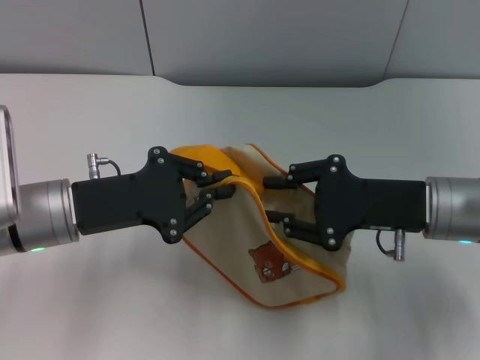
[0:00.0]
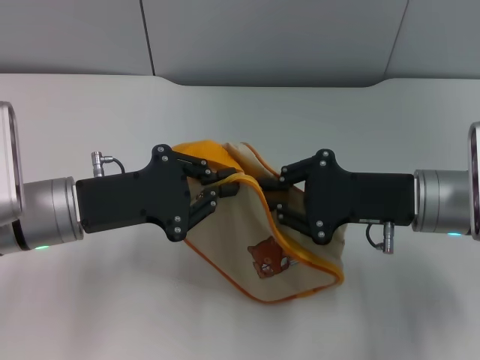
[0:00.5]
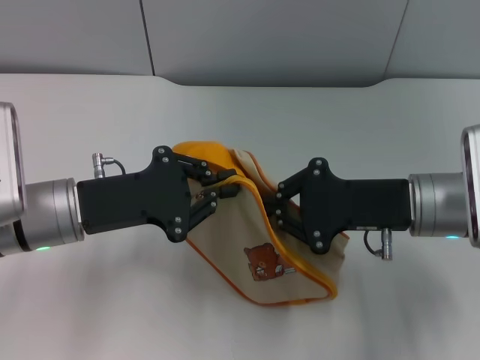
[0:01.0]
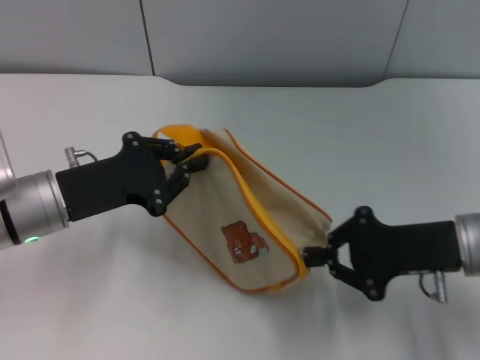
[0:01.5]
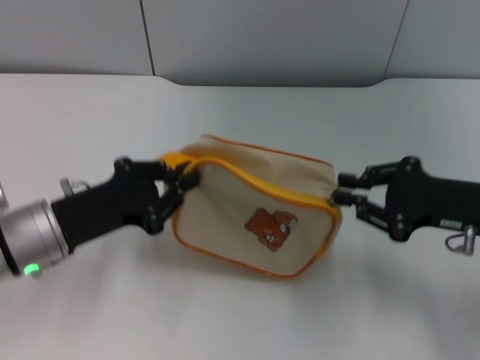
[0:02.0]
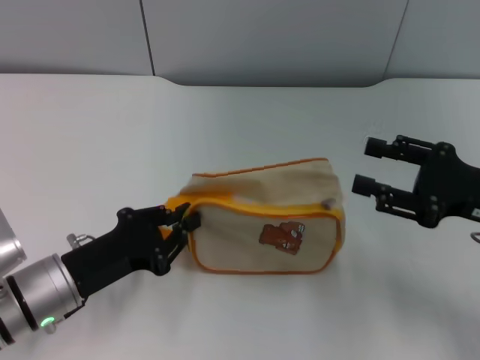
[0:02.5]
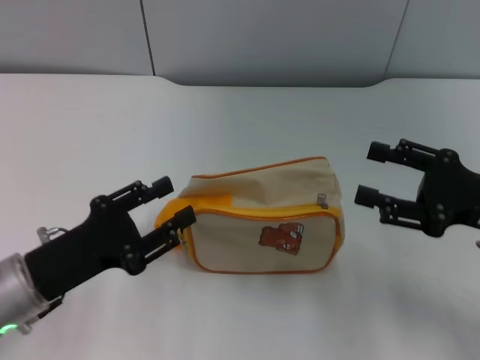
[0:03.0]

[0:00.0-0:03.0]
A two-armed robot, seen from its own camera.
Step, 0:00.0 to 0:02.0: Unzip the zipper of bag with right gripper.
0:00.0 to 0:01.5: The right gripper closes up.
0:01.5 to 0:03.0: The left gripper travels backward by approximately 10 cm, and opens its fingers, while the right gripper travels to the right by approximately 5 cm, and opens.

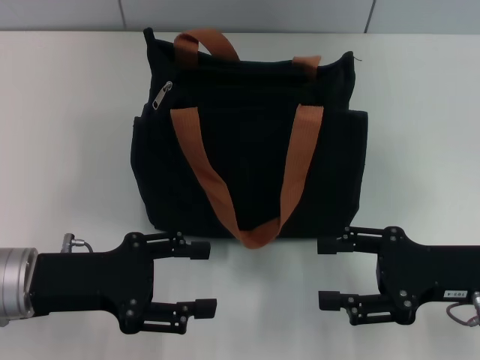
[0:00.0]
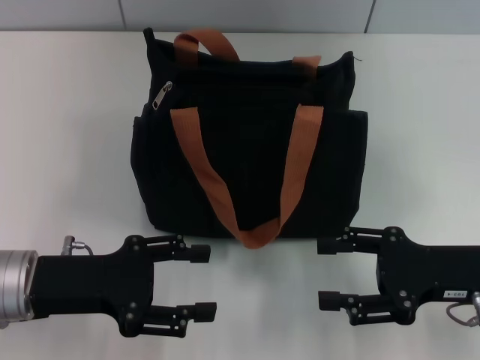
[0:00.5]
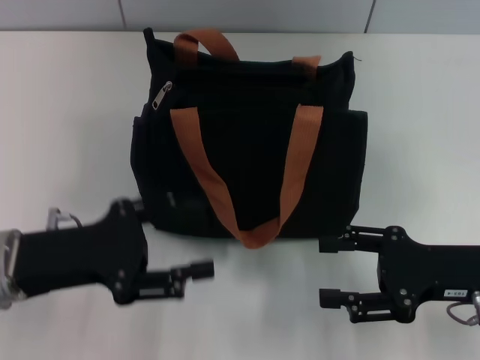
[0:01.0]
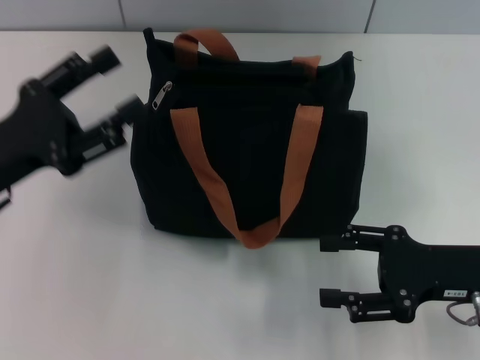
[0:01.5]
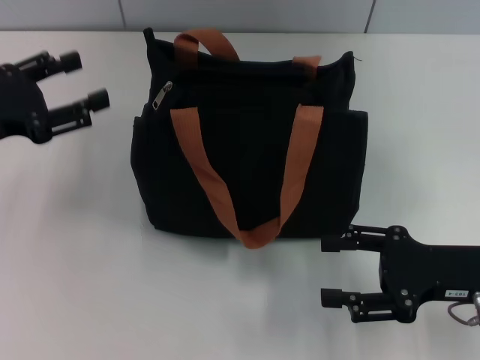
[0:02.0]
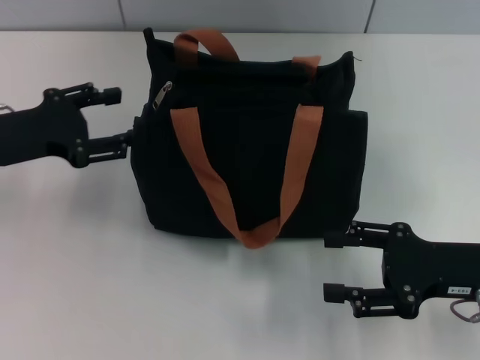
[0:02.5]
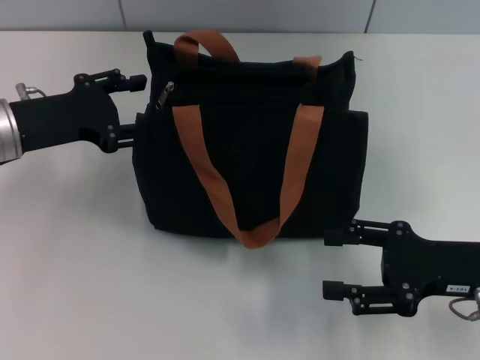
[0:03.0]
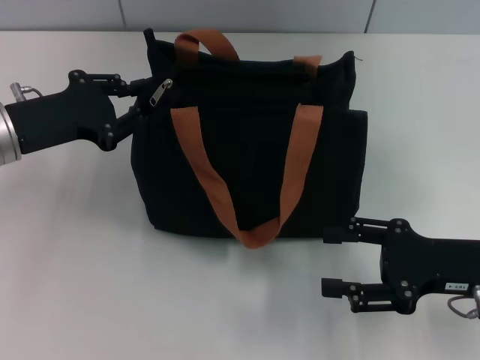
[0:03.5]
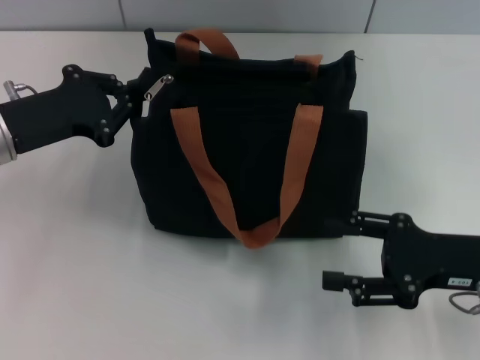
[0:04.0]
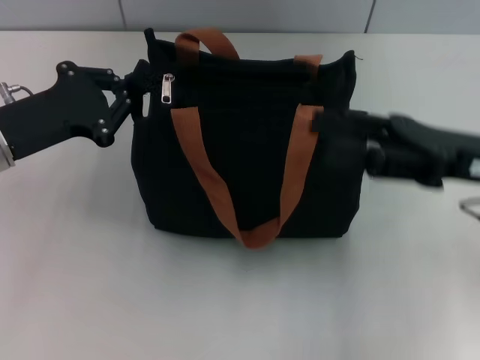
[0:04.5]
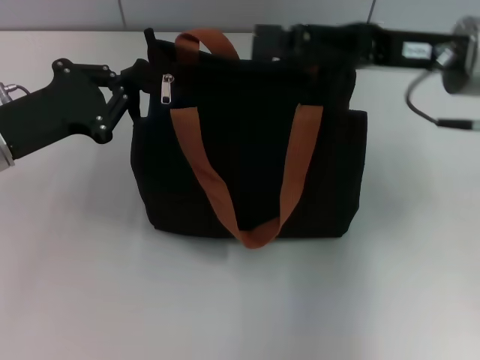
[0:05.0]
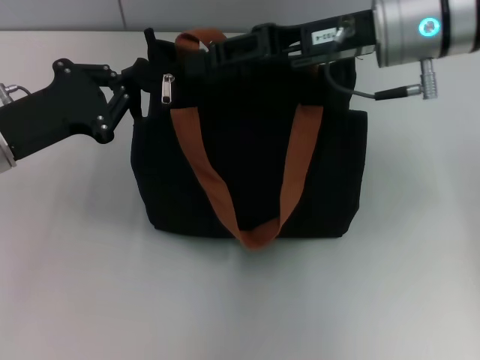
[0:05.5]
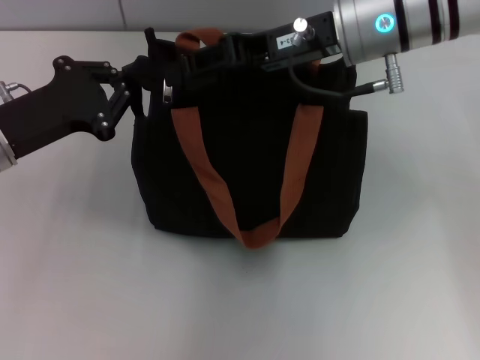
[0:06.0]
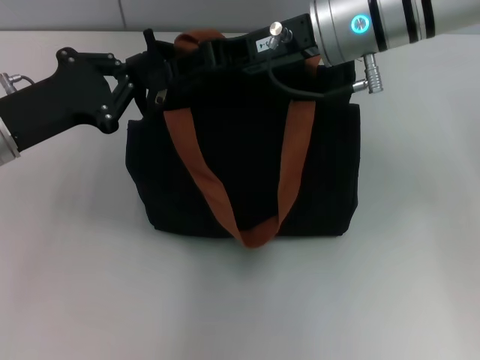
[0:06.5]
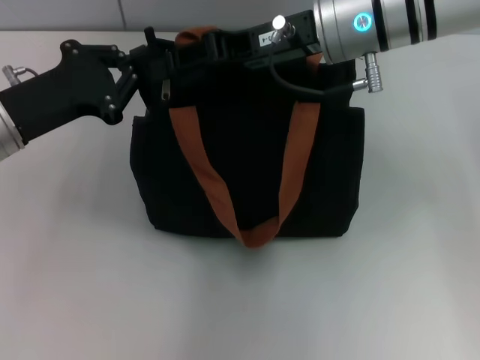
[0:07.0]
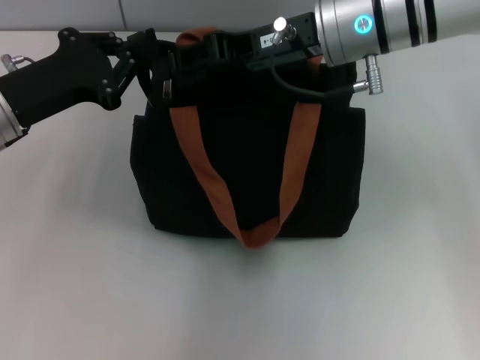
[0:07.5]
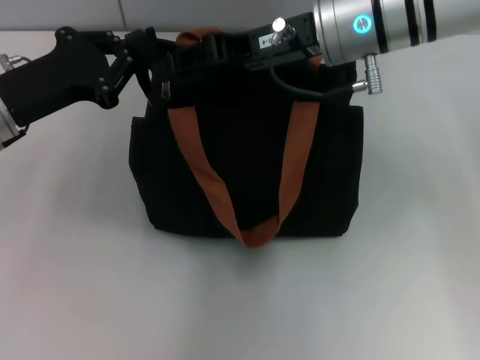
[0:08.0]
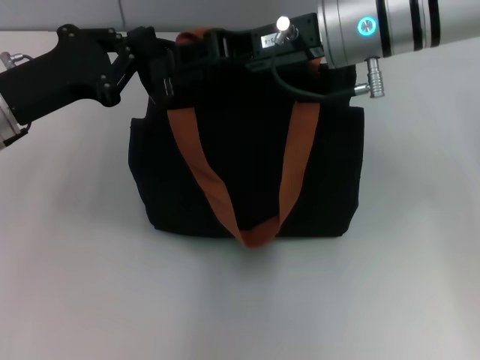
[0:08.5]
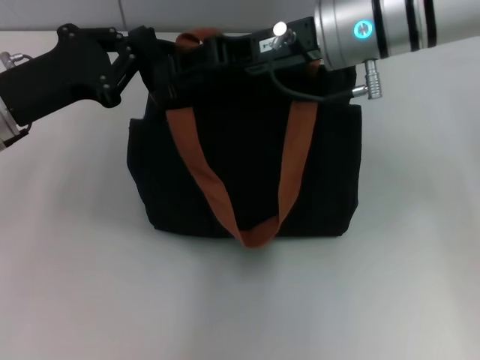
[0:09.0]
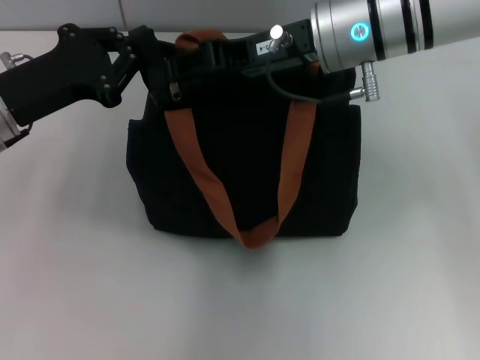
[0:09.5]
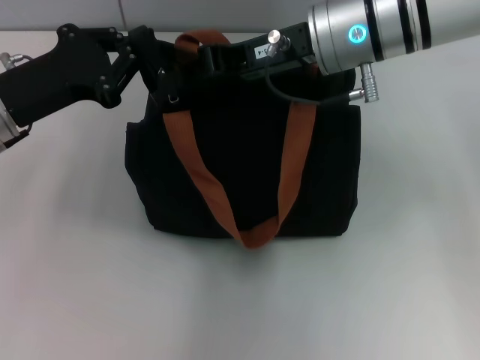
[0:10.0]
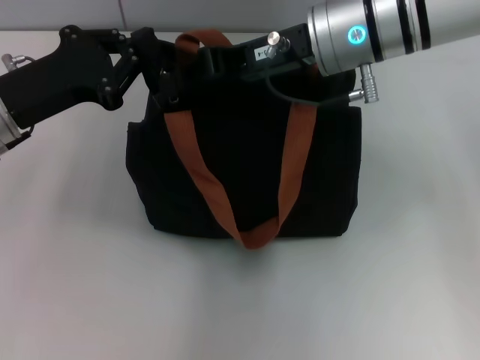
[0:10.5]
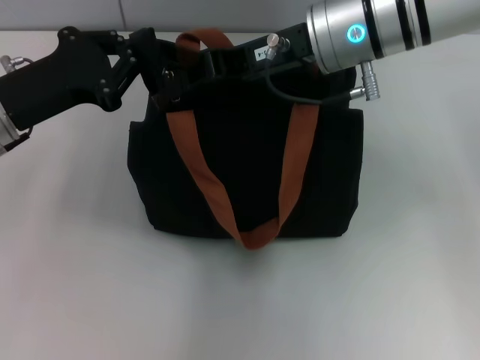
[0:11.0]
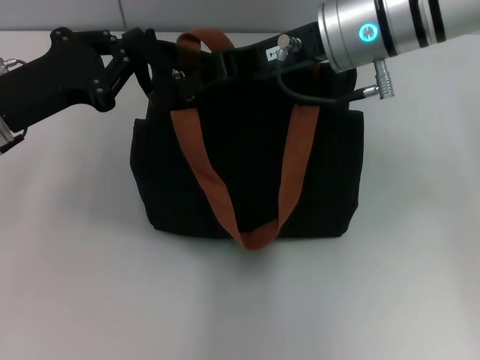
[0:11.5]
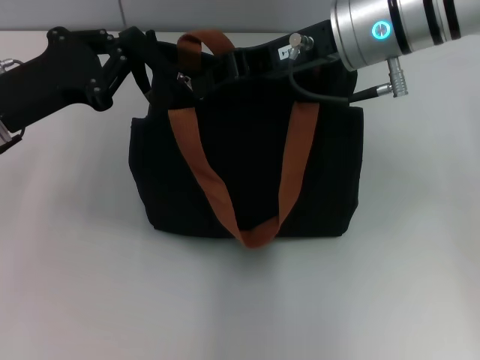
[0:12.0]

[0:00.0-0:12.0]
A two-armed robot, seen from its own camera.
0:00.0 to 0:02.0: The left gripper heads to the left, forward and upward, covering some 10 cm.
0:02.0 to 0:04.0: The left gripper ends up some 5 cm from where it was, and closes its fingers.
0:04.0 to 0:06.0: The right gripper moves forward, to the left and upward, roughly 25 cm.
0:06.0 to 0:08.0: There are only small adjustments of the grippers.
0:08.0 to 0:10.0: Both grippers stay put.
0:10.0 to 0:12.0: There are only small adjustments of the grippers.

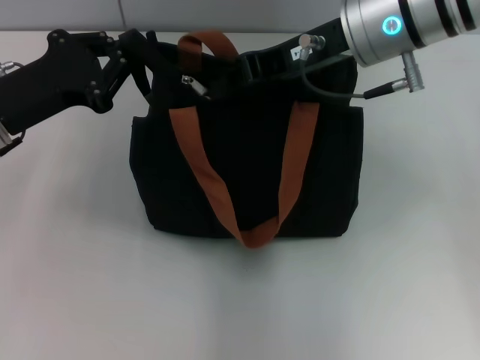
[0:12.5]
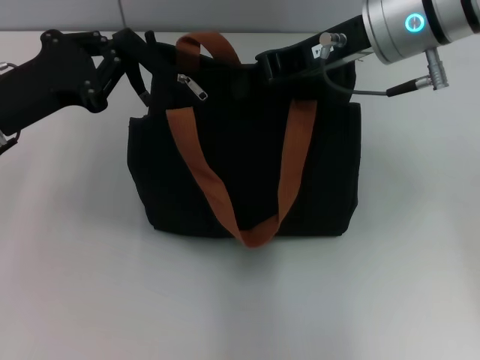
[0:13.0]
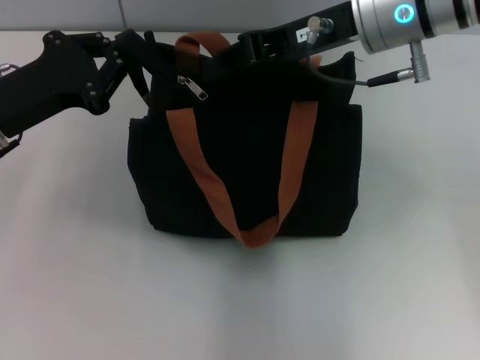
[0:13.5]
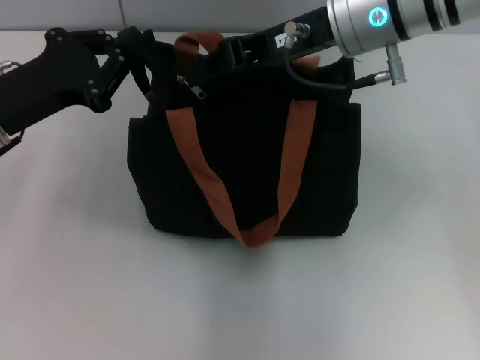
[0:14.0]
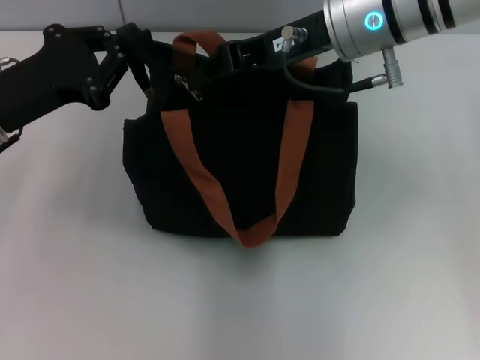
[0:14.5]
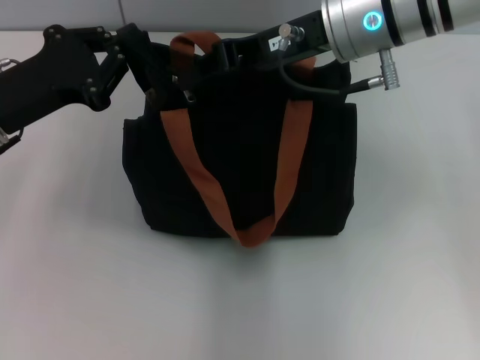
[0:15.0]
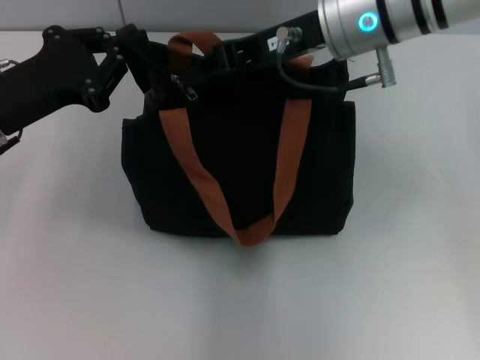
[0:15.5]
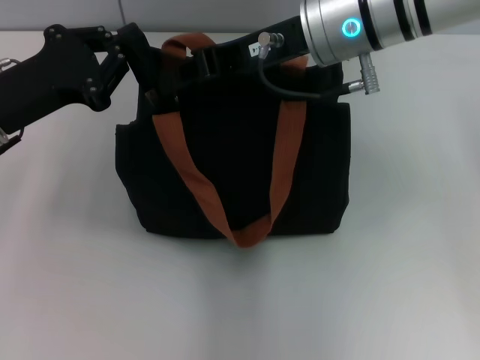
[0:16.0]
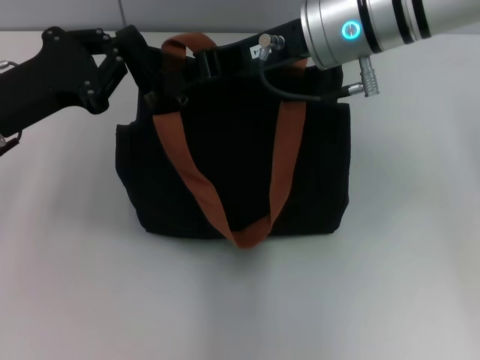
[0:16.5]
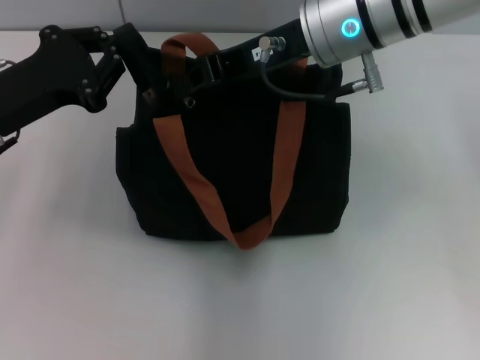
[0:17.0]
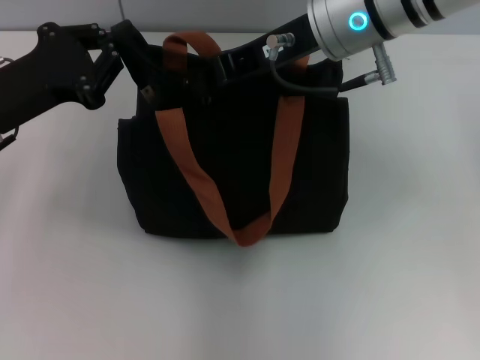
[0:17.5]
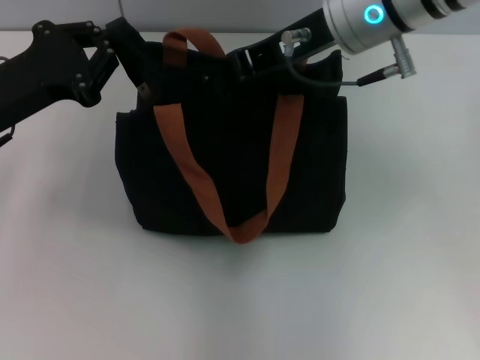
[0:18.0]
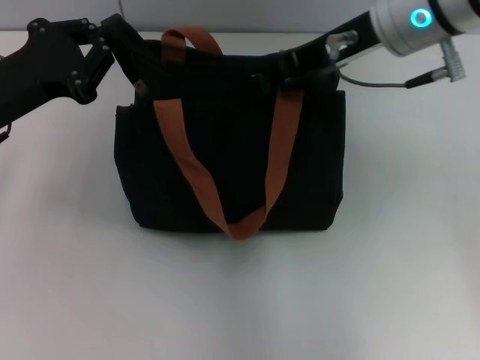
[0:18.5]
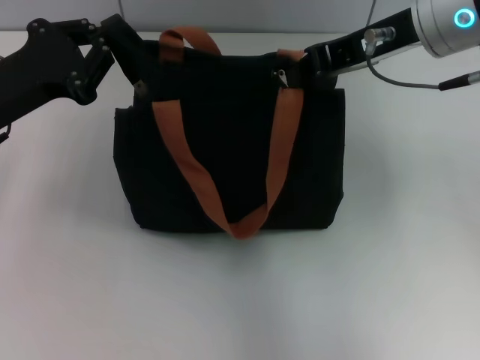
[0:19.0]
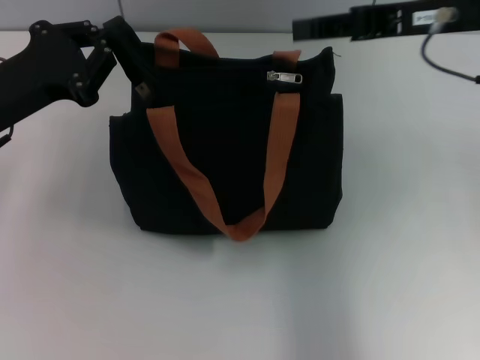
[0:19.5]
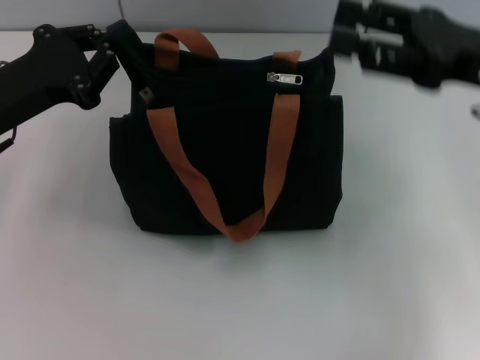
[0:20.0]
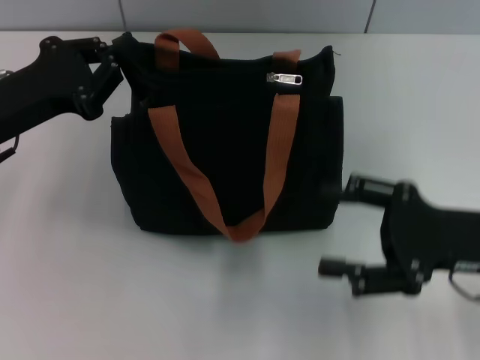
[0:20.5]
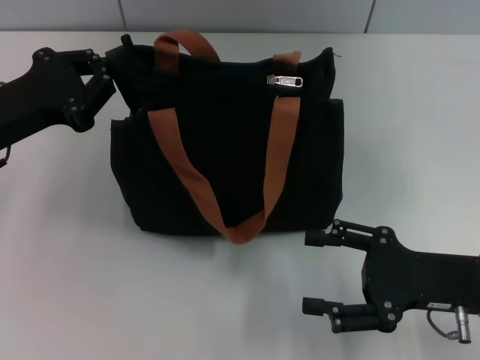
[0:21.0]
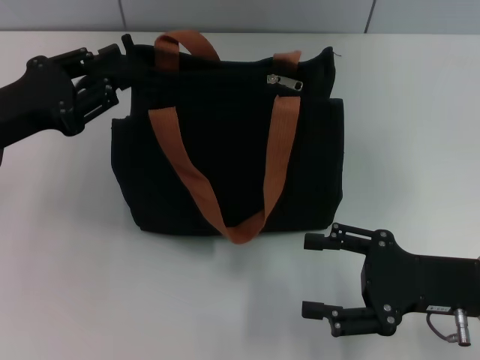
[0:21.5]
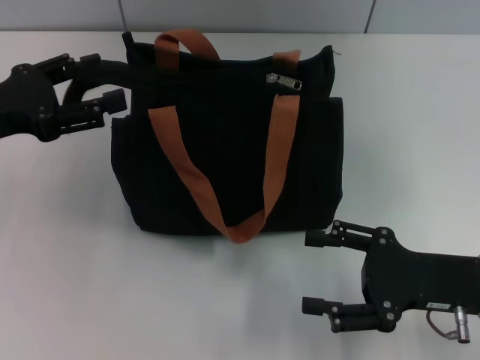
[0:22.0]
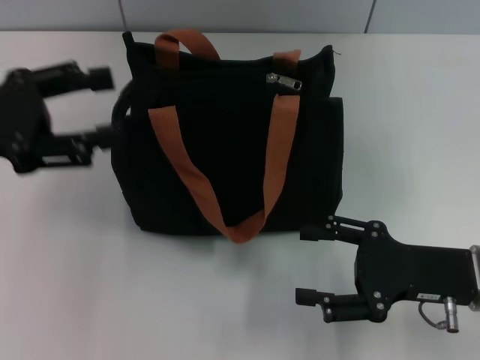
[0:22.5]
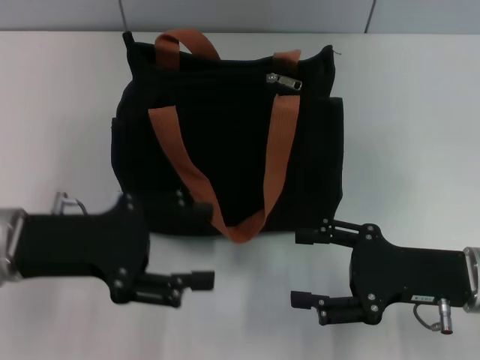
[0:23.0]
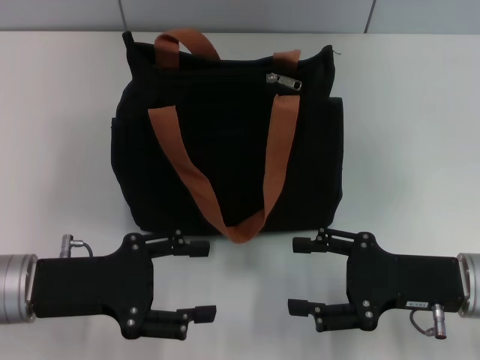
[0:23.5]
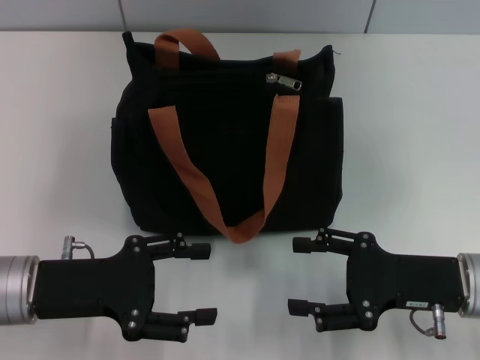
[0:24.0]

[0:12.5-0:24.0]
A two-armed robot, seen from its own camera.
Step, 0:12.5 to 0:18.5: Grab the zipper with your left hand.
Step, 0:19.0 to 0:22.0: Pull up the zipper with your right hand.
0:12.5 to 0:16.5: There are only small adjustments of the grippers.
0:16.5 to 0:18.5: The right gripper moves some 5 cm.
0:18.5 to 0:20.0: The right gripper shifts roughly 15 cm to the right, backward and downward, and opens up.
0:20.0 to 0:22.0: The left gripper opens its fingers. Meanwhile the right gripper goes roughly 15 cm downward and backward.
0:22.0 to 0:24.0: The left gripper travels downward, backward and to the right by about 15 cm.
